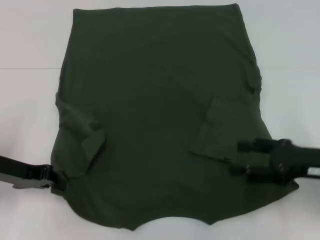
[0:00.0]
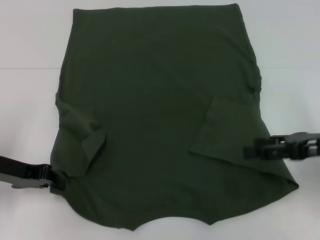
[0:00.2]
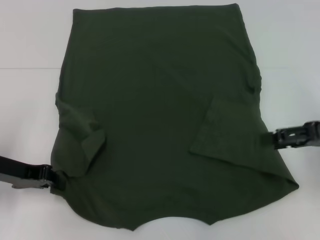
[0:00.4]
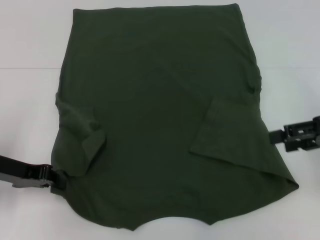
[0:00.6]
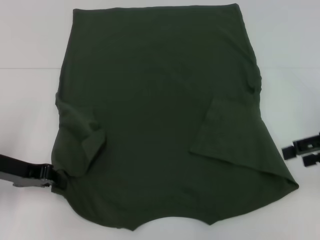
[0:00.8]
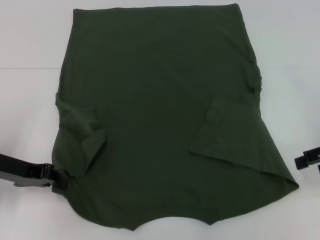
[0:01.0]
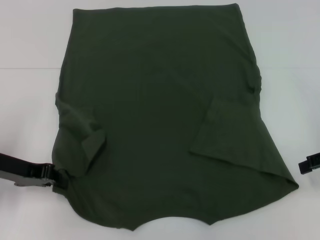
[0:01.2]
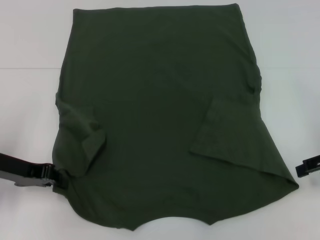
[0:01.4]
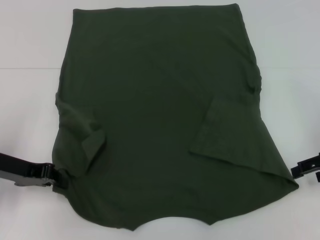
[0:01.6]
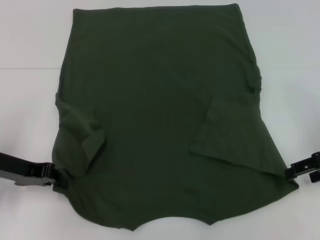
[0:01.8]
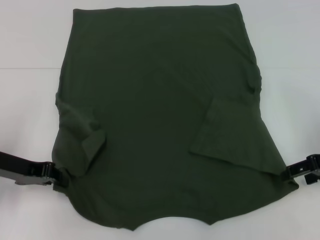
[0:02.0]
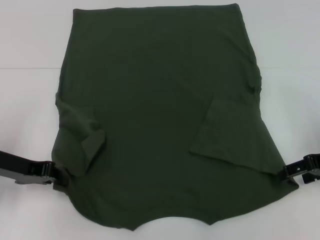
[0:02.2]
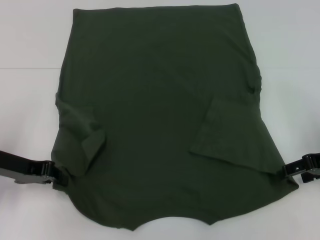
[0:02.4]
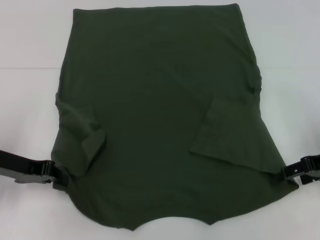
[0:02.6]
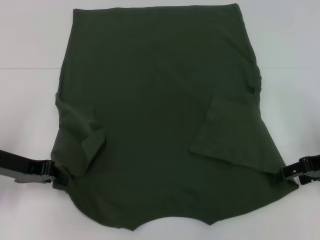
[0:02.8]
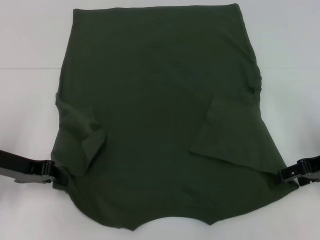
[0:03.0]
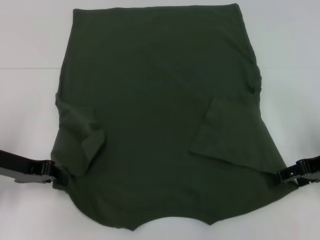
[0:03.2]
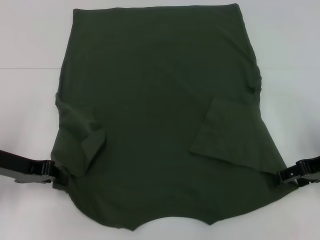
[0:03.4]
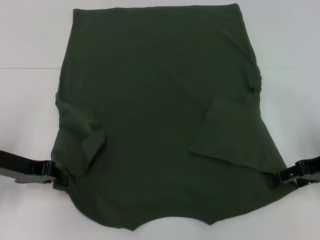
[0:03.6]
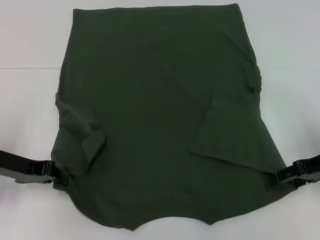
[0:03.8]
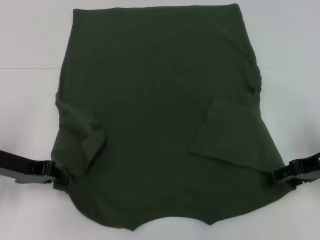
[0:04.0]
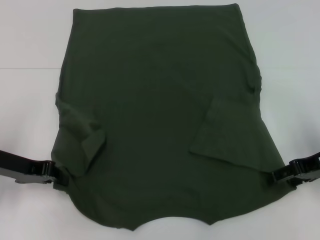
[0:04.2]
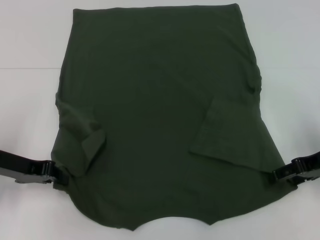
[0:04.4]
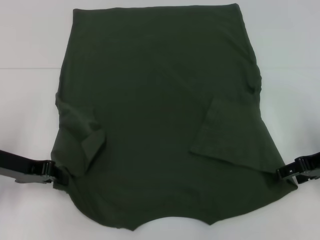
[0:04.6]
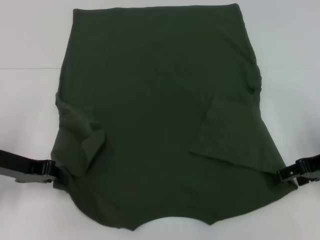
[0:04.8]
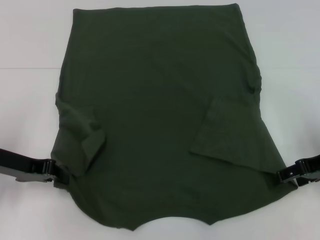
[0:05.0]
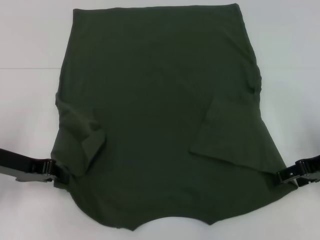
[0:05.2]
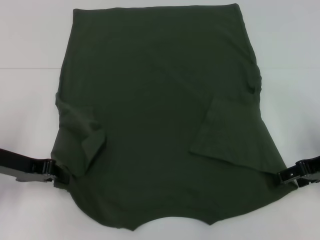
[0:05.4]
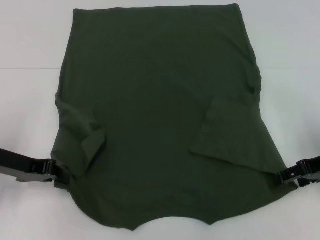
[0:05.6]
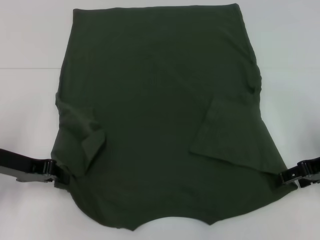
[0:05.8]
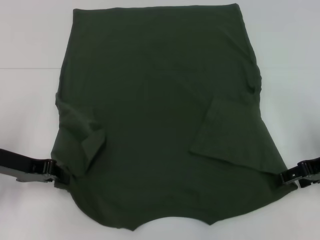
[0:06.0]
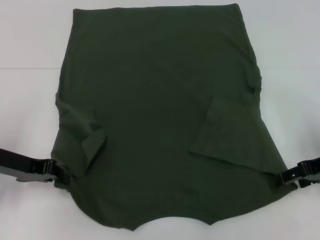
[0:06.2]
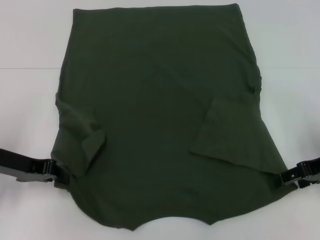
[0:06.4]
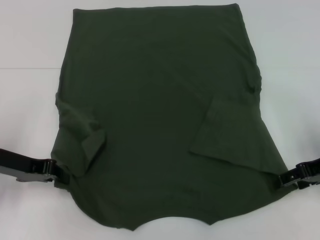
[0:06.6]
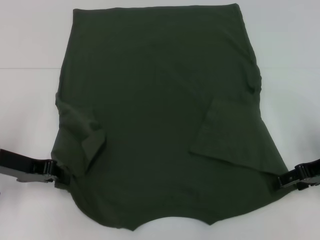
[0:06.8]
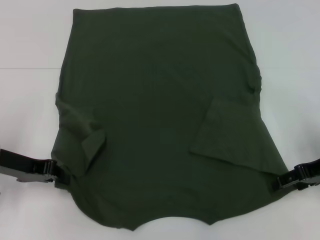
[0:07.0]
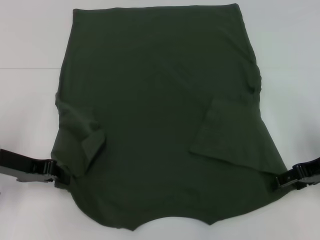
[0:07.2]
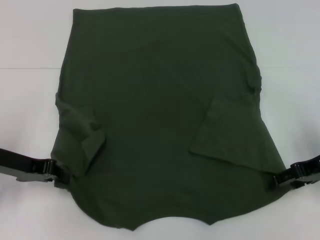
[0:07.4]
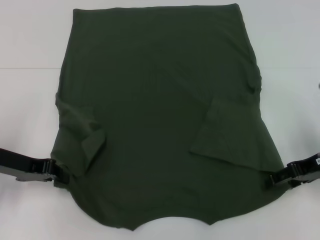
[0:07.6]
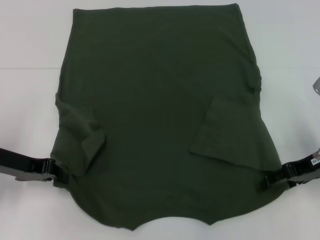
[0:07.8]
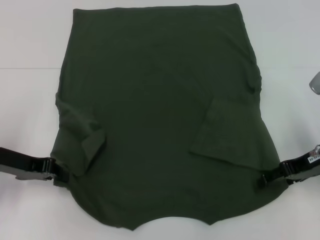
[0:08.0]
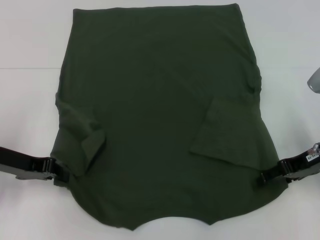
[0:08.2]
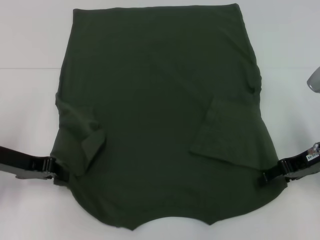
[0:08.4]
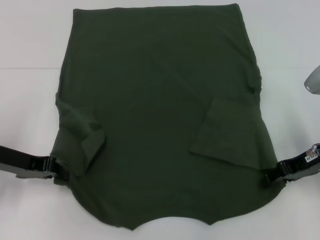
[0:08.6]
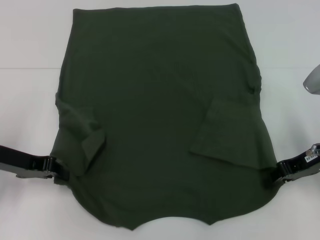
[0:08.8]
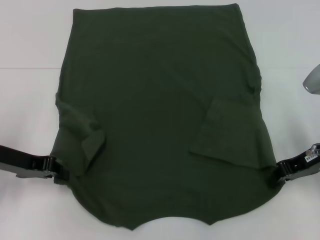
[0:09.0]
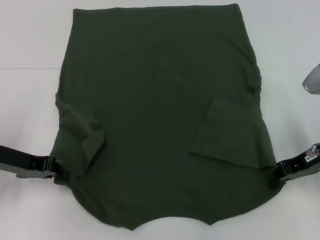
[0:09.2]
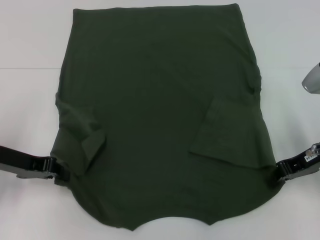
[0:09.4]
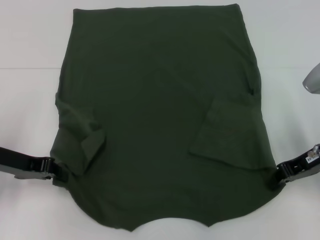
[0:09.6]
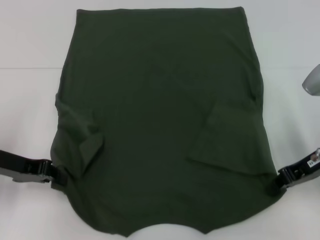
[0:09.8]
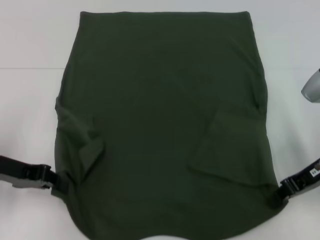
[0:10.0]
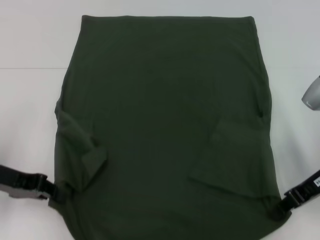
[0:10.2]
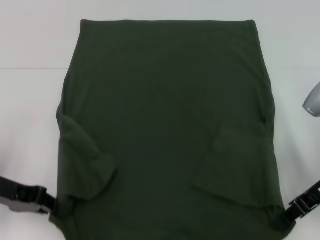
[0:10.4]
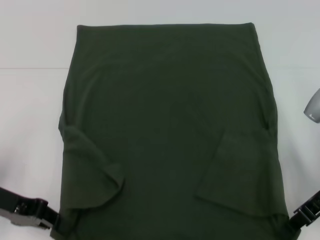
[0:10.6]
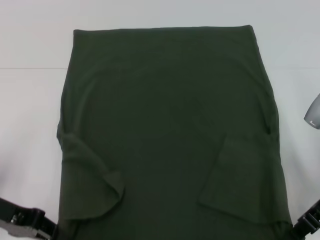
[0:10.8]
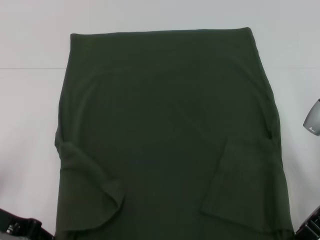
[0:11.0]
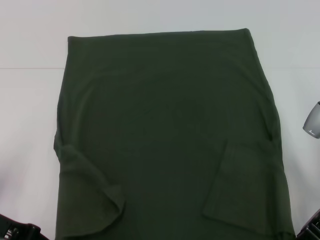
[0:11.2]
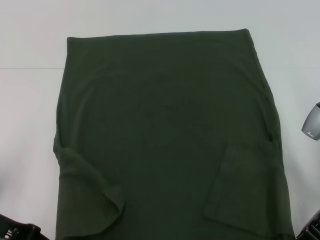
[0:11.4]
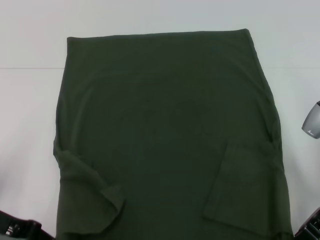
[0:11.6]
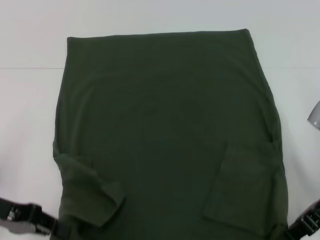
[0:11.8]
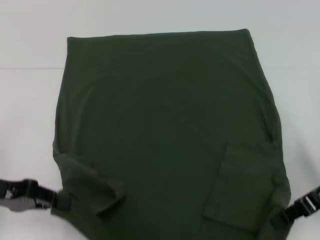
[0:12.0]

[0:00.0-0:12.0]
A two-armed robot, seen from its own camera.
Step, 0:00.0 to 0:09.0: Grab the bottom right corner with your right hand.
0:00.0 to 0:01.6: The right gripper heads forward, covering approximately 5 cm.
0:01.6 to 0:03.0: There are only small adjustments of the grippers.
0:03.0 to 0:06.0: Neither gripper changes place.
0:06.0 to 0:07.6: There are only small adjustments of the grippers.
0:07.6 to 0:09.0: The right gripper closes up.
0:10.4 to 0:12.0: There are only small adjustments of the grippers.

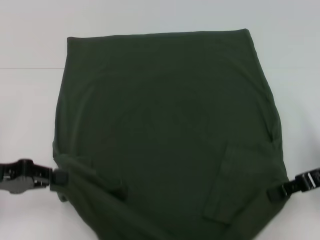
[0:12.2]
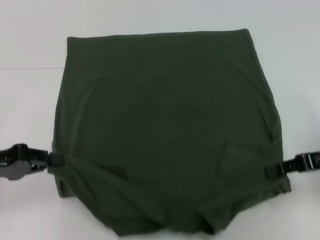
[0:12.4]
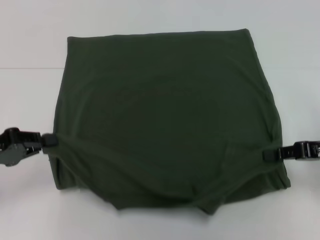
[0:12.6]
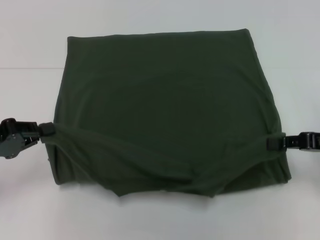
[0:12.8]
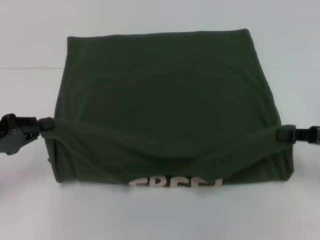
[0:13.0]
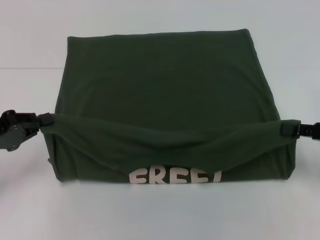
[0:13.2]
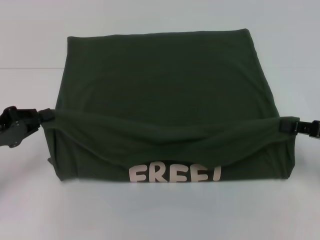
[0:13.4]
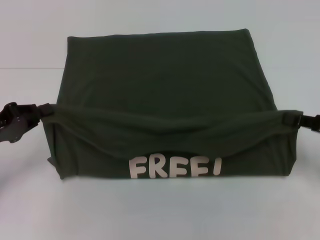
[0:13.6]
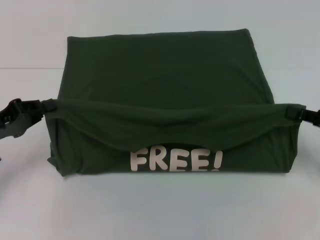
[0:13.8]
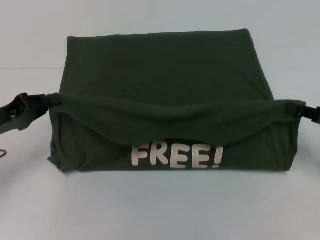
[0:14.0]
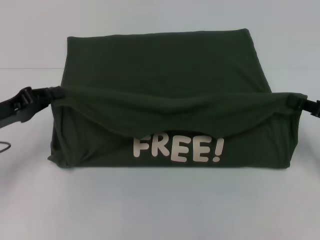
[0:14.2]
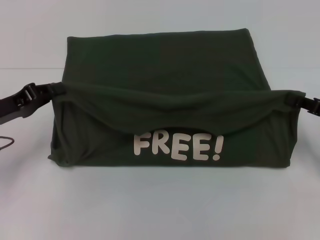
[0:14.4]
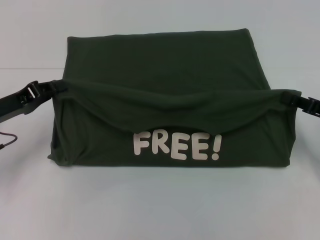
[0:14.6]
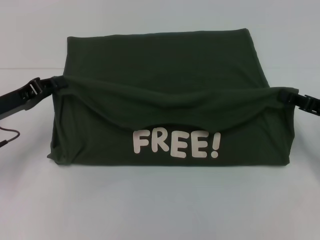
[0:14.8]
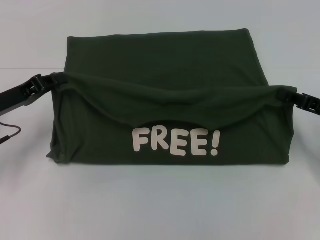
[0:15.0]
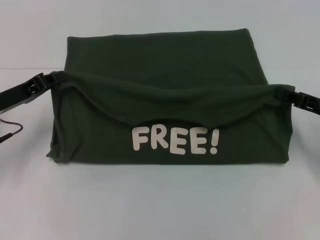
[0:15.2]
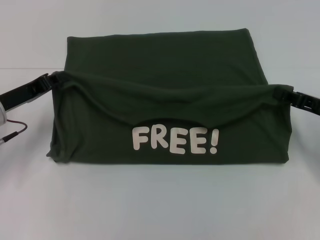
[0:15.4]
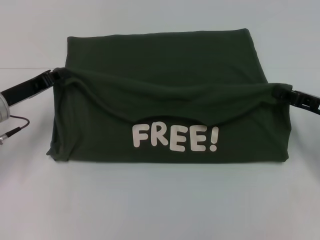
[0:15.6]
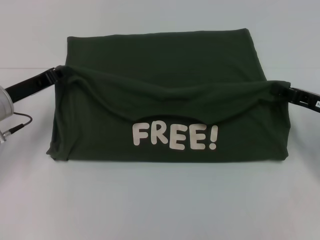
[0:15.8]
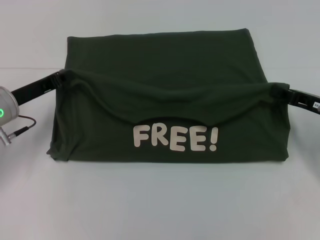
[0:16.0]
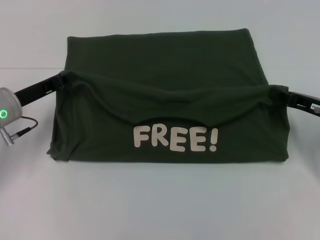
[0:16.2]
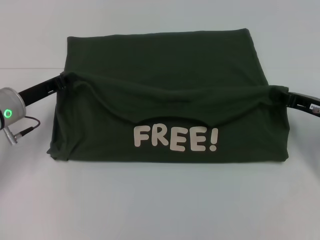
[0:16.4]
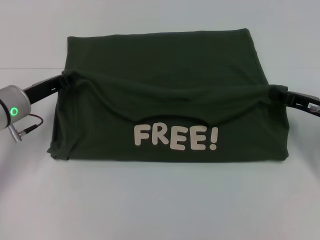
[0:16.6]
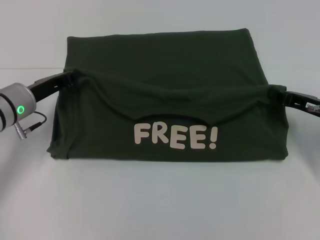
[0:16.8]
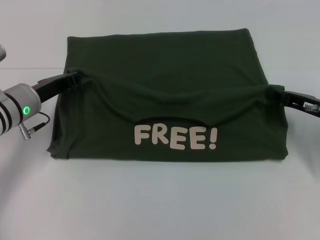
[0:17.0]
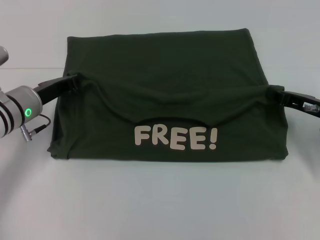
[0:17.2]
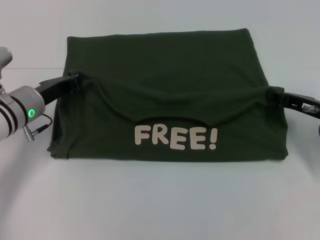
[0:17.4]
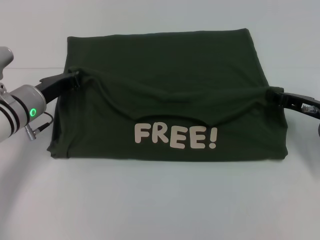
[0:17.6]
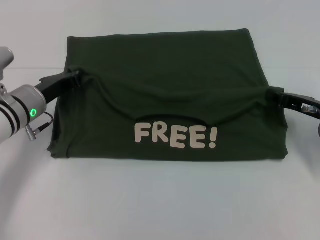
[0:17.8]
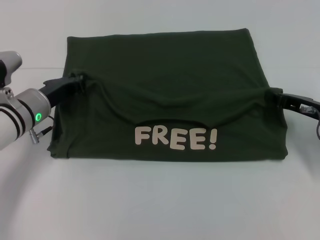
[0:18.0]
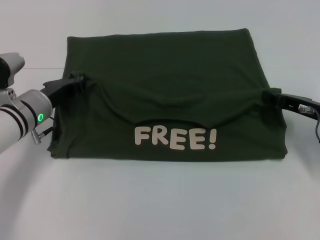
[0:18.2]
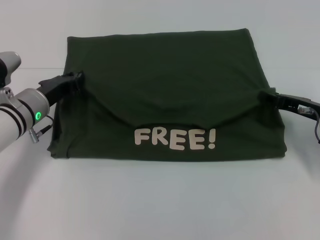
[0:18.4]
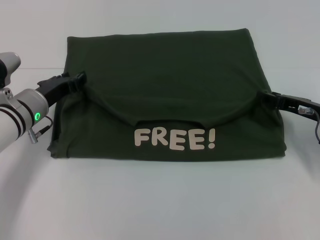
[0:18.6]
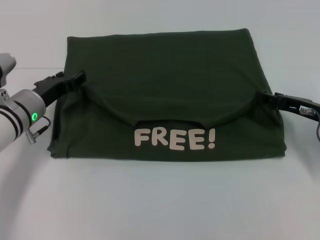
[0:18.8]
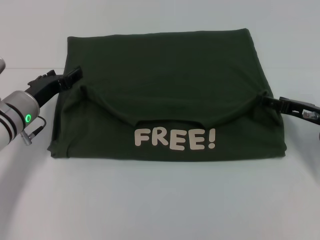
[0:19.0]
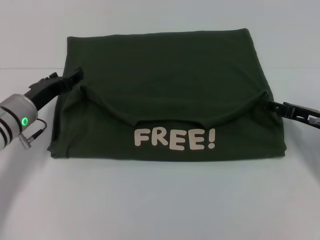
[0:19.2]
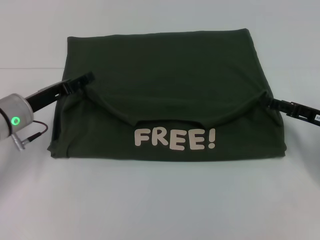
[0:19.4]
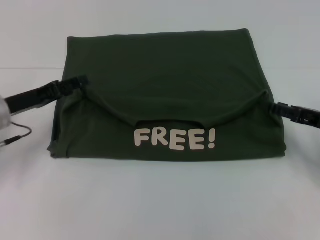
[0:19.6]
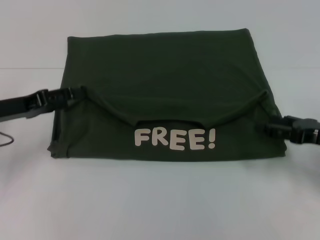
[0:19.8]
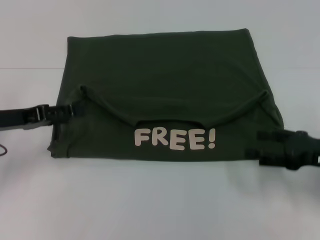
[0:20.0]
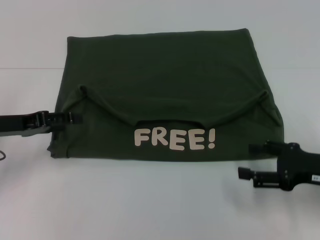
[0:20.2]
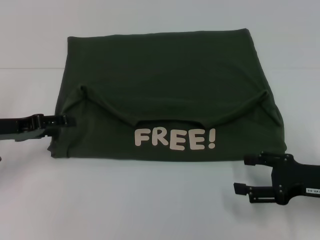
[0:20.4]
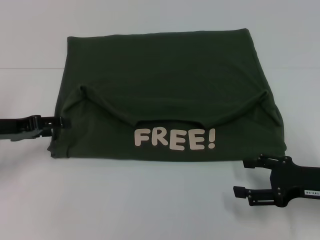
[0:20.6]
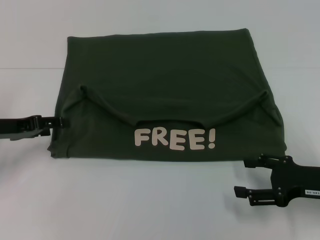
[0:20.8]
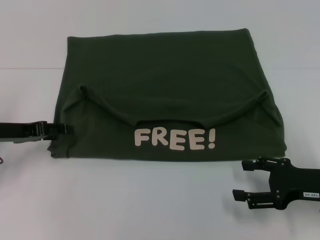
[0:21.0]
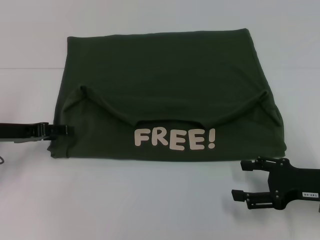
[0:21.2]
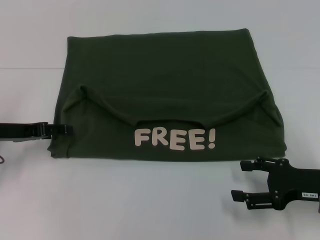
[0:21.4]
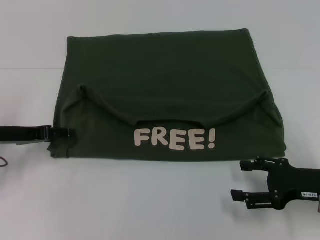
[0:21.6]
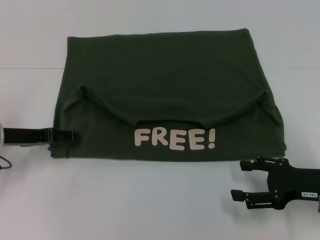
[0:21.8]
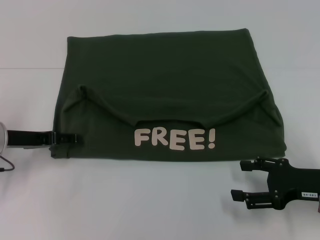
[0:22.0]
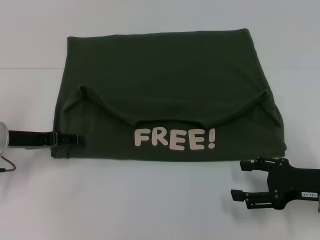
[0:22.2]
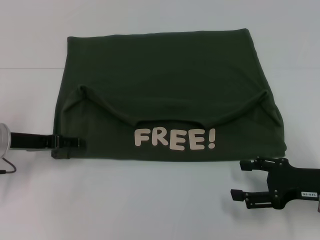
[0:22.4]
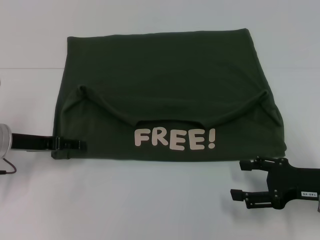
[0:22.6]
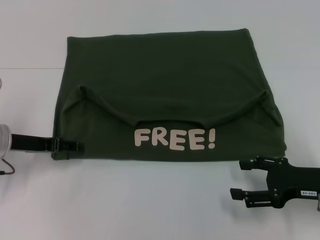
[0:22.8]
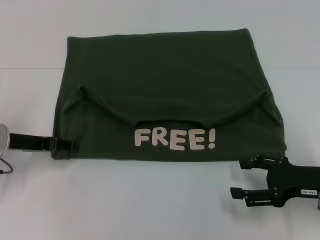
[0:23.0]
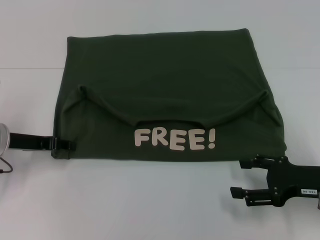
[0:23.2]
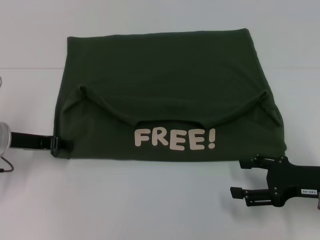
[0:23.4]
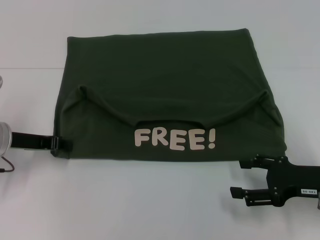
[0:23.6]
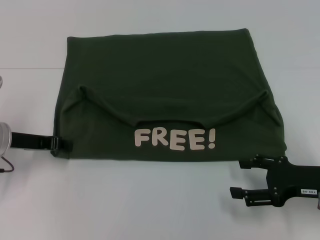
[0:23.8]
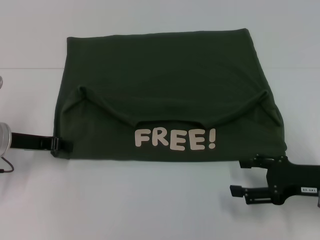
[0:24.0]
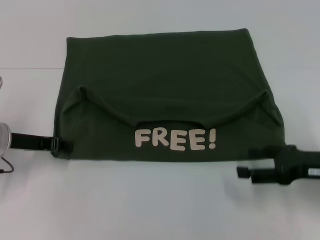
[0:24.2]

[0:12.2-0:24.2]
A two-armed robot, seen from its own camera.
Step, 0:12.2 to 0:18.8: Fold the clothes with your left hand.
Step, 0:12.2 to 0:18.8: Fold the clothes with your right hand.
0:12.2 to 0:13.8: The right gripper moves about 5 cm.
0:13.8 to 0:15.2: The left gripper heads forward, covering approximately 5 cm.
0:15.2 to 0:16.6: The left gripper moves some 5 cm.
0:16.6 to 0:18.2: The grippers move only a little.
0:18.2 to 0:19.8: The left gripper travels to the left by about 10 cm, and opens its fingers. The right gripper shifts approximately 5 cm backward, and opens.
0:19.8 to 0:21.2: The right gripper changes place by some 5 cm.
0:21.2 to 0:22.6: The grippers move only a little.
0:22.6 to 0:24.2: The left gripper closes its fingers.
